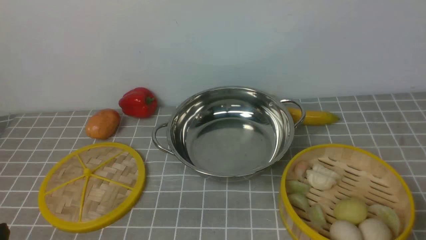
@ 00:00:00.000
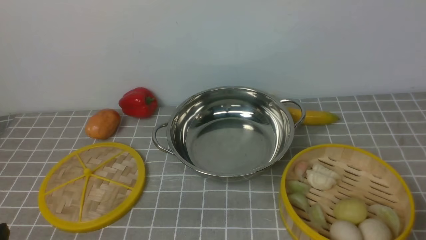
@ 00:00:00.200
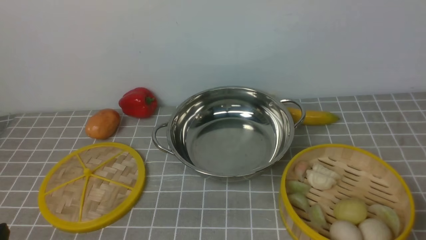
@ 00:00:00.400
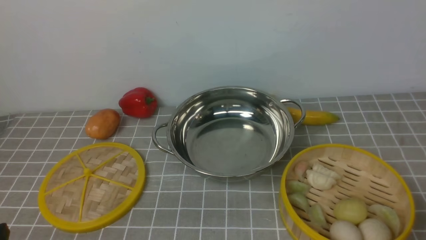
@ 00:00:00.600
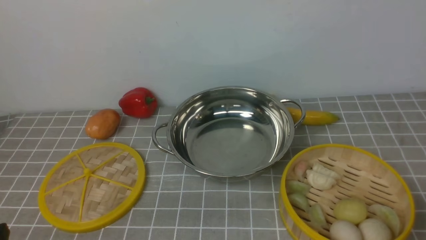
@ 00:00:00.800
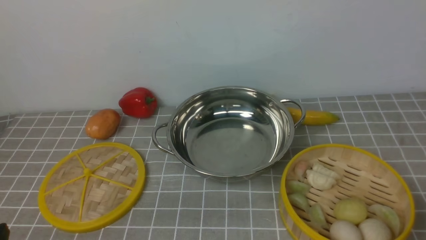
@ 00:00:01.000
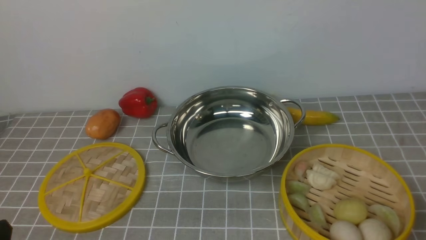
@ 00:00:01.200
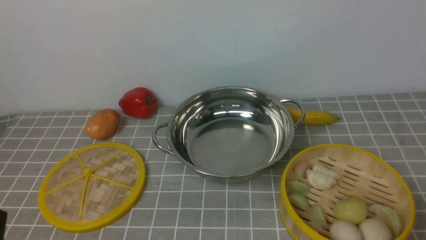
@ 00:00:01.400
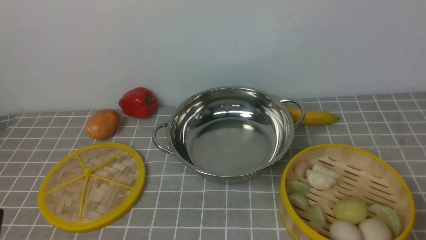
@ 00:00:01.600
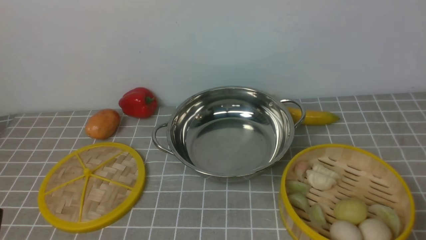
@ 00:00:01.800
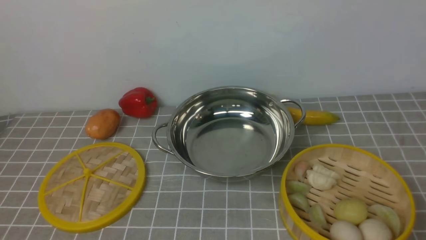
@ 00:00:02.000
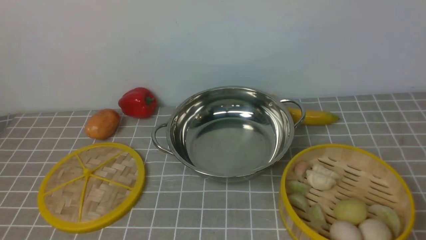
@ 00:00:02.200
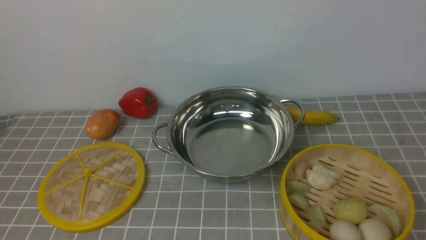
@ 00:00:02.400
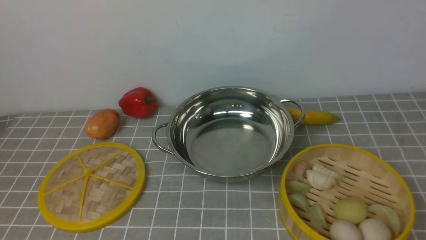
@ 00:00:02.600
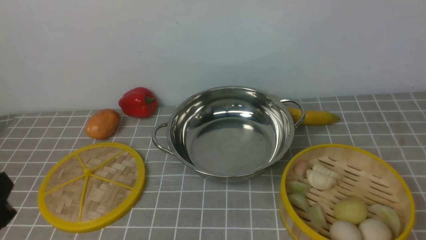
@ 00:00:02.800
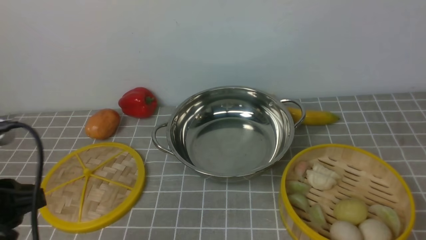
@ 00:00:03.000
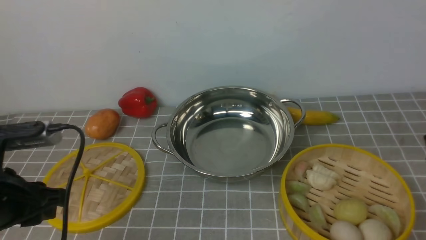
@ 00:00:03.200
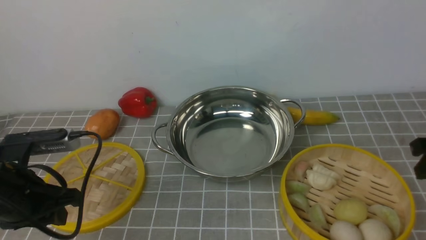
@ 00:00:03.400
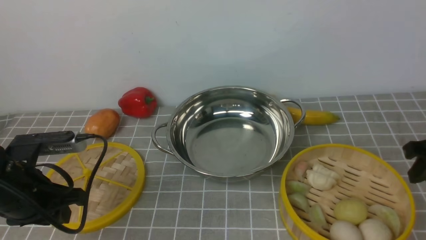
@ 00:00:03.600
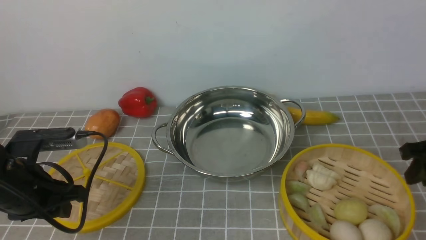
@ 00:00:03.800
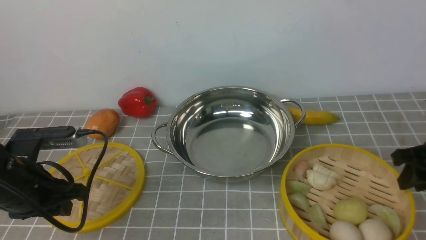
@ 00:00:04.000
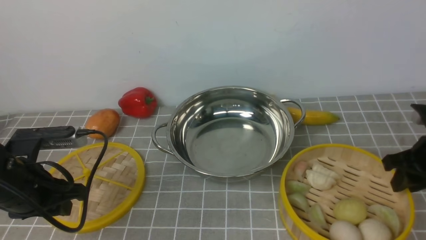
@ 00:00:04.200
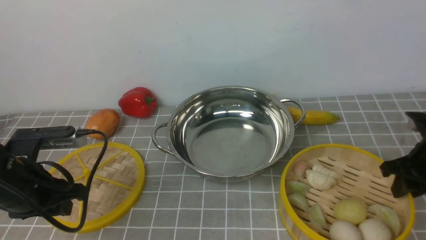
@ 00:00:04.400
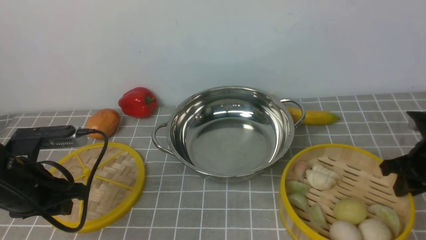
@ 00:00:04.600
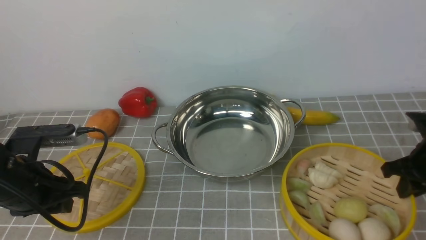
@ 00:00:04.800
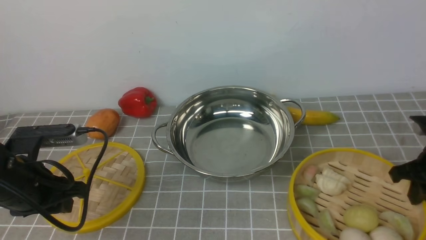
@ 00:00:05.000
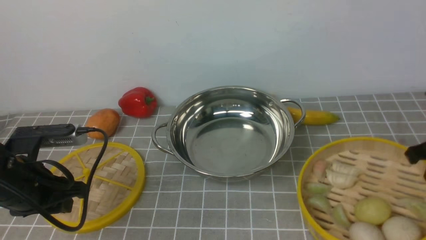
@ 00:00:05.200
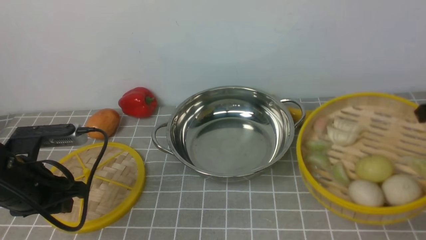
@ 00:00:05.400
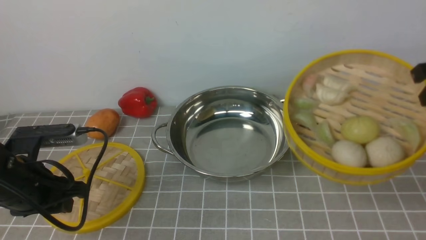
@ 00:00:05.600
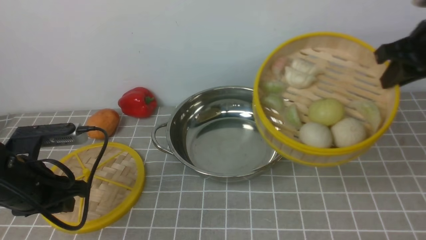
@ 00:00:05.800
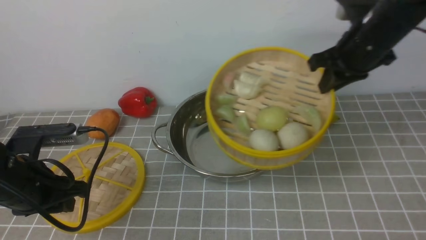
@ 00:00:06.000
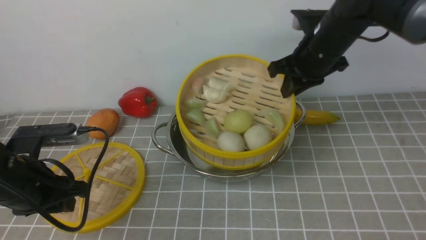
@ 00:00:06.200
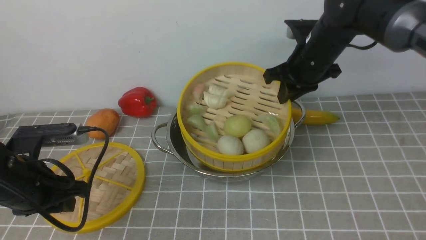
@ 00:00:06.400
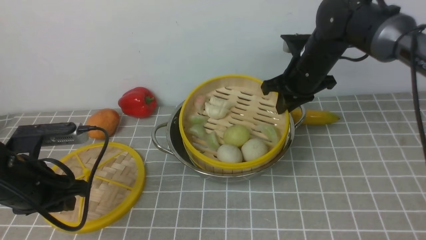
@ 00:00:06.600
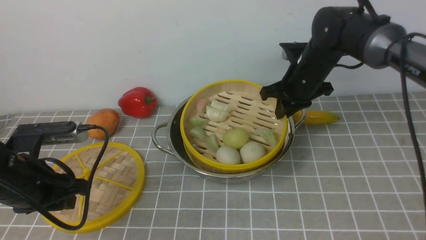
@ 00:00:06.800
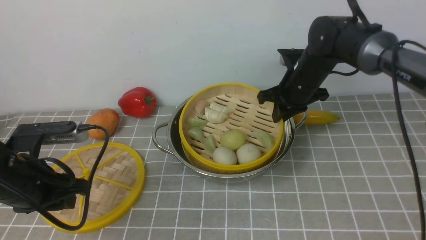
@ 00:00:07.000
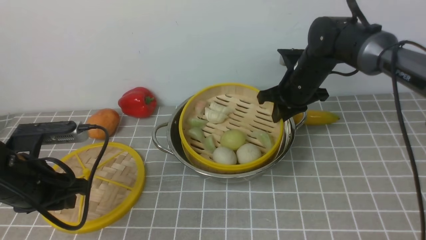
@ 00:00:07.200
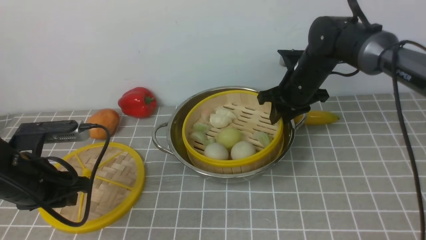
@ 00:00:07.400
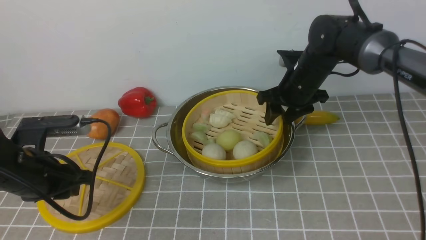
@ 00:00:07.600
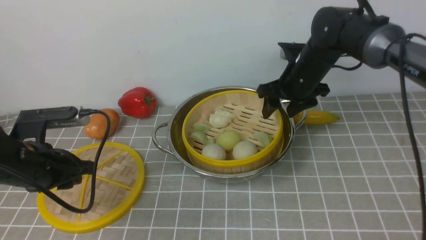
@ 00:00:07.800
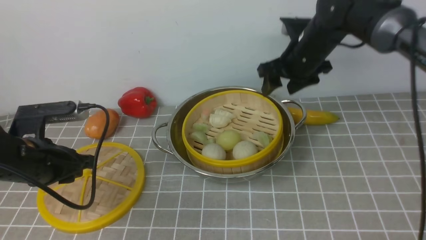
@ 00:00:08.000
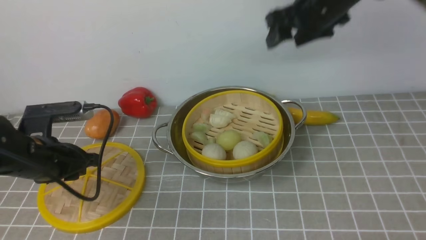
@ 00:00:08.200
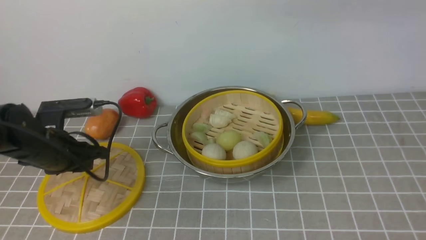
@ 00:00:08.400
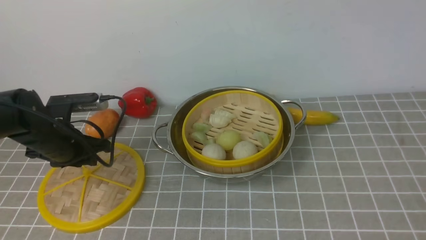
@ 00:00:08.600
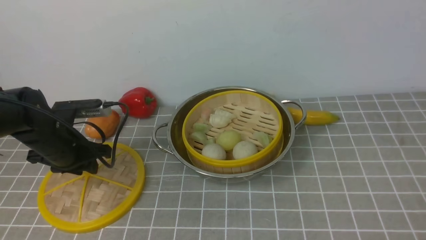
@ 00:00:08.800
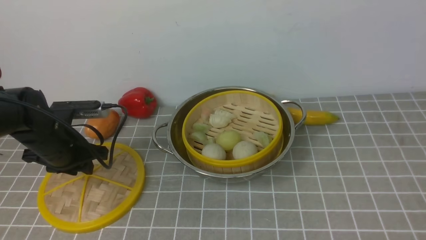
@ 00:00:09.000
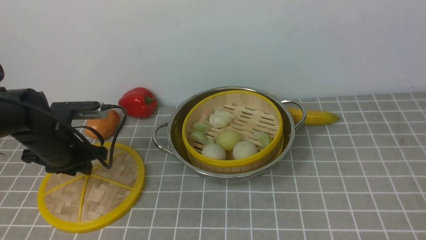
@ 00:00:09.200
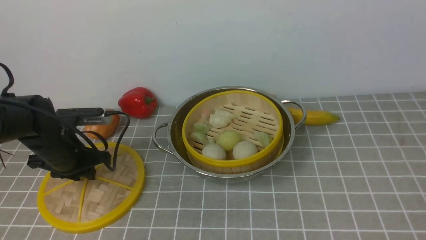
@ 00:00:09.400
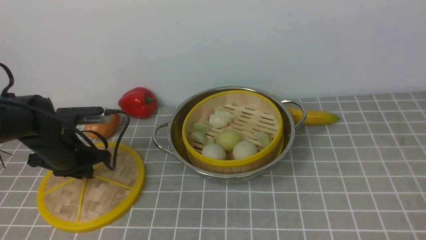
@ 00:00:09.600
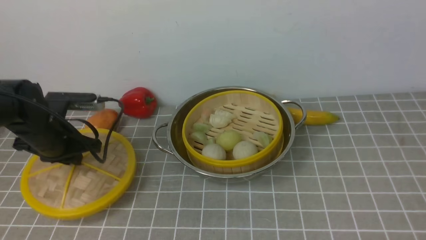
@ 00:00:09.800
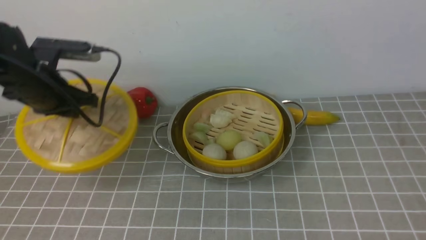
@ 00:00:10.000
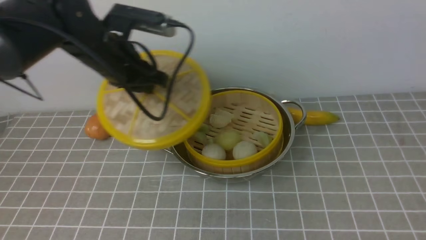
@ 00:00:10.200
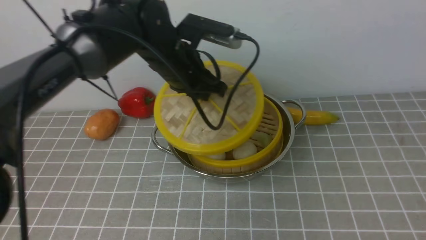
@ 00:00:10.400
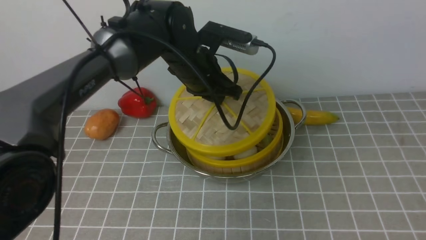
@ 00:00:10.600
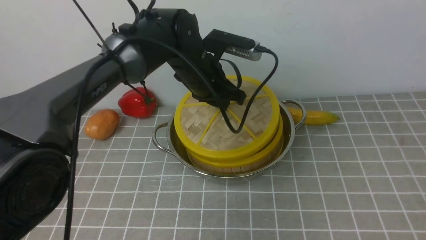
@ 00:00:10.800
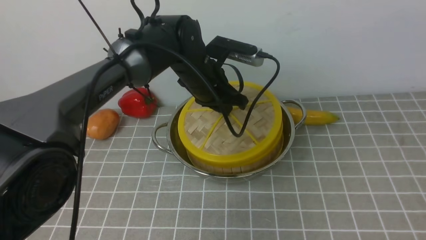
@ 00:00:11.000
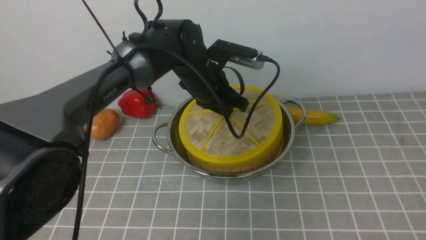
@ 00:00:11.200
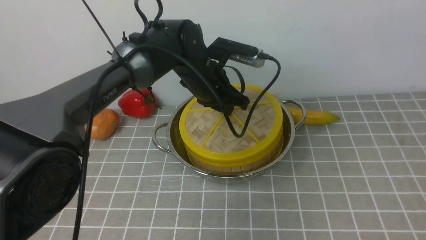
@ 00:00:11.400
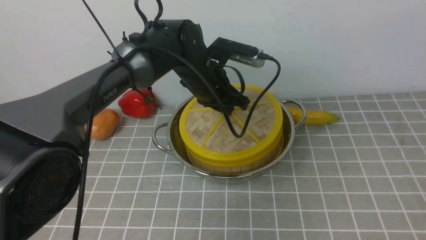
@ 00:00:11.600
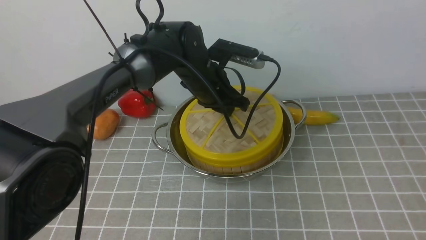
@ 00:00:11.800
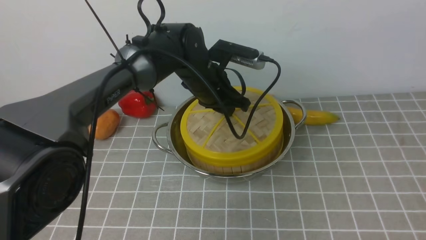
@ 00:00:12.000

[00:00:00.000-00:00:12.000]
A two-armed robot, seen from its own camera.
Task of the whole recording: place the steamer in the pot on the grey tablecloth, and put the lid on the steamer.
Step, 00:00:00.000 to 00:00:05.000: use the right arm to lift the steamer closest to it.
Step, 00:00:05.400 to 00:00:07.800: use the right arm to put the steamer into the iron steamer pot in the middle.
00:00:01.600 to 00:00:03.000: The left gripper goes approximately 10 cm forward and upward.
00:00:03.000 to 00:00:04.400: The left gripper goes about 10 cm forward and downward; the right gripper shifts about 15 cm downward and forward.
00:00:04.400 to 00:00:06.000: The right gripper goes roughly 20 cm upward, to the left and forward.
00:00:06.000 to 00:00:07.600: The right gripper is displaced downward, to the left and forward by roughly 15 cm, and opens up.
00:00:07.600 to 00:00:09.000: The right gripper moves backward and upward, some 60 cm. Meanwhile the left gripper moves forward, roughly 10 cm.
00:00:09.000 to 00:00:10.400: The left gripper is displaced to the right and upward by some 20 cm.
00:00:10.400 to 00:00:12.000: The left gripper heads downward, covering about 5 cm.

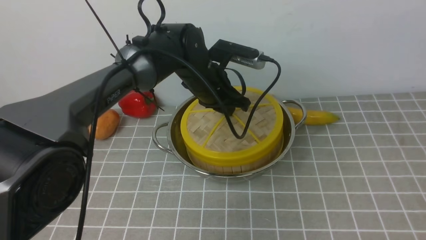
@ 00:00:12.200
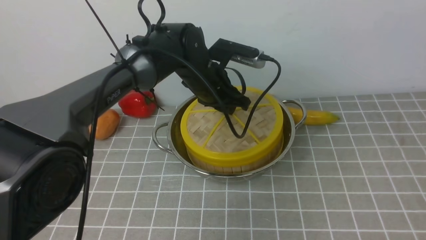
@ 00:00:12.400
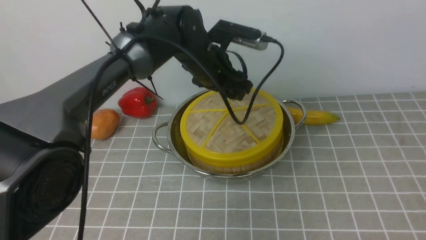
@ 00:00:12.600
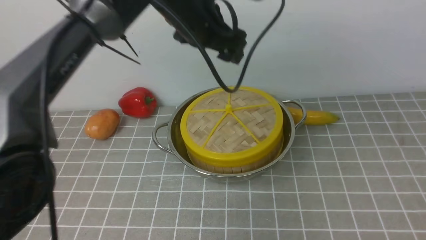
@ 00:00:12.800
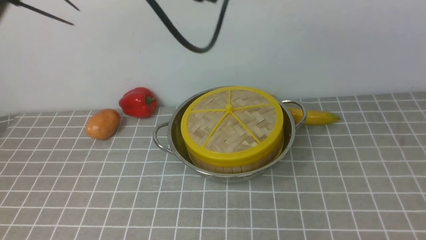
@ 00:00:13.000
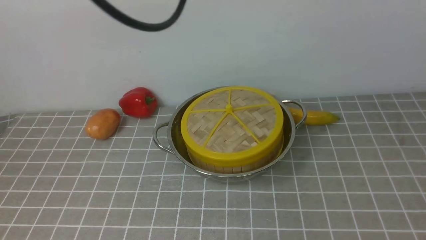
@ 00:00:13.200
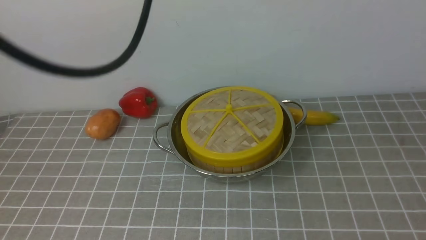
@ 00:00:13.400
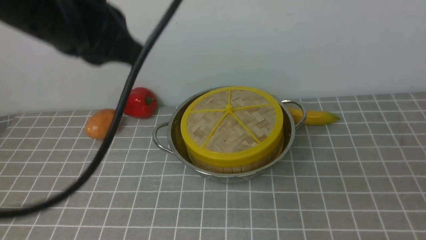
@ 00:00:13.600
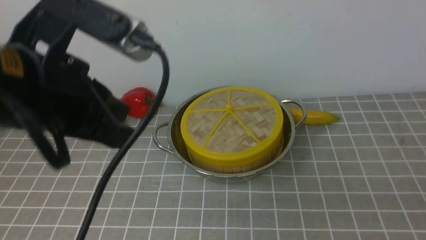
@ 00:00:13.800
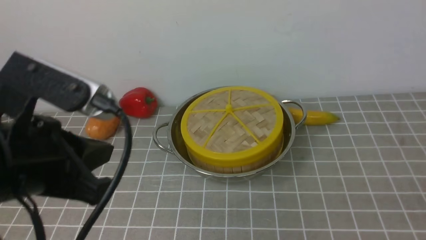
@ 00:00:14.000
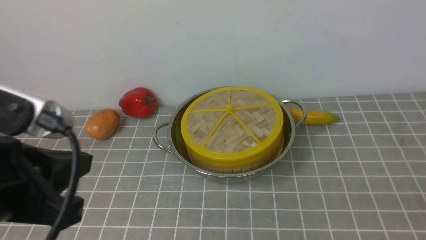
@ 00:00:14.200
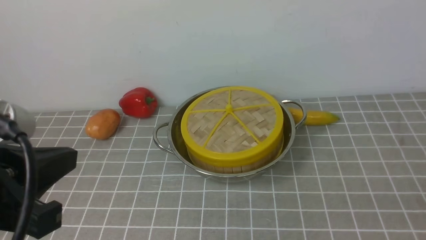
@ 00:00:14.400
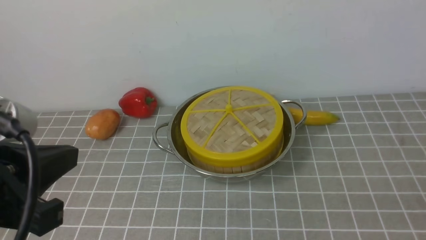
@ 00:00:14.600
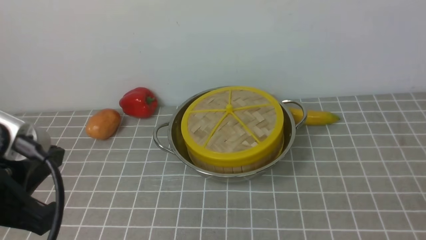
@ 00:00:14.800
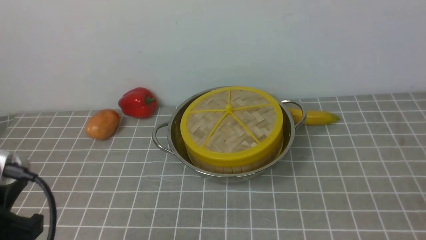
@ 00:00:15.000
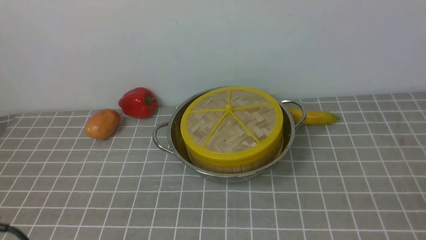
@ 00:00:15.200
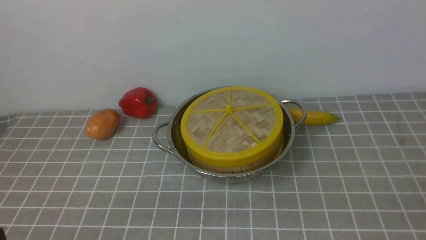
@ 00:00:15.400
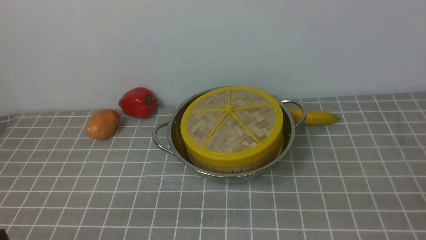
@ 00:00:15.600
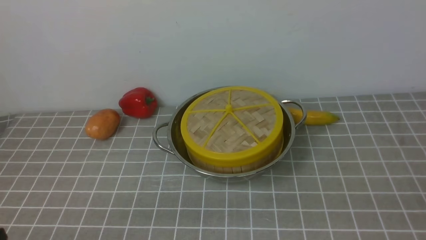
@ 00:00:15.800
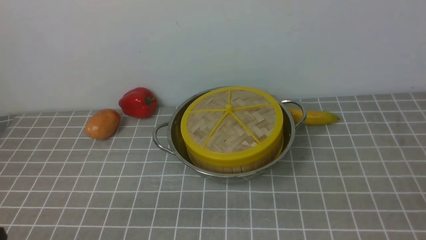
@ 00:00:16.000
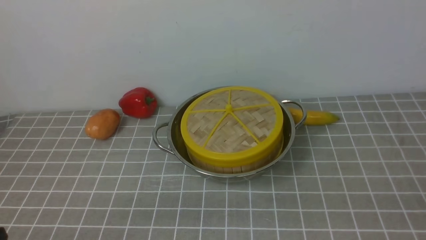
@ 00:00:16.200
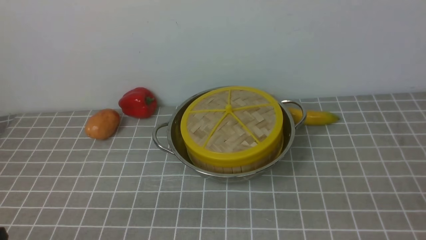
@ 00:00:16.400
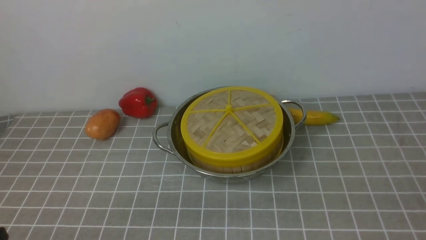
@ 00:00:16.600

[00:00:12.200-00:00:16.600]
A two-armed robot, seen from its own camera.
Task of the whole recording: place the steamer in the pot on the grey tablecloth, and put the lid on the steamer.
00:00:12.200 to 00:00:13.600: The right gripper is displaced downward by some 25 cm, and closes its fingers. Meanwhile the left gripper moves upward, backward and to the left, approximately 30 cm, and closes its fingers.
00:00:13.600 to 00:00:15.200: The right gripper moves downward, approximately 5 cm. Meanwhile the left gripper moves downward, backward and to the left, roughly 30 cm.
